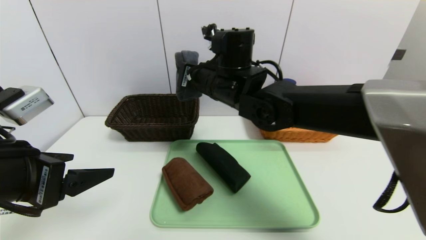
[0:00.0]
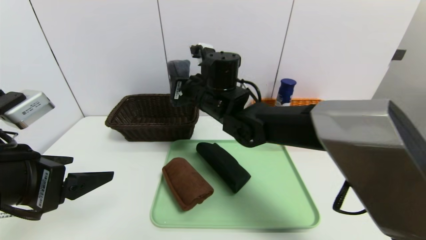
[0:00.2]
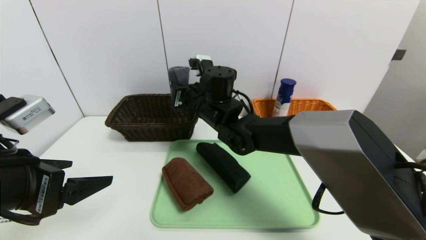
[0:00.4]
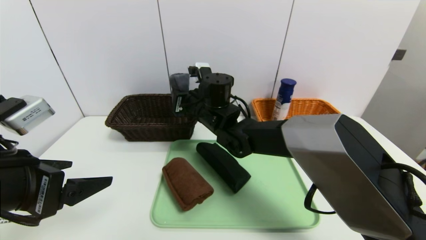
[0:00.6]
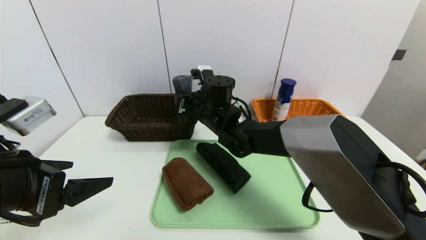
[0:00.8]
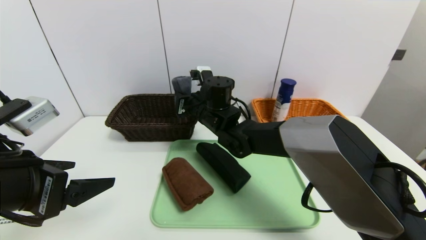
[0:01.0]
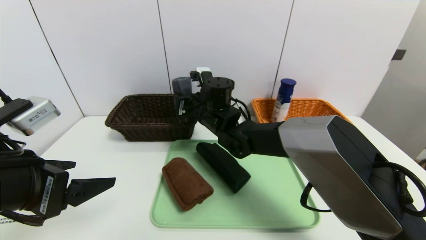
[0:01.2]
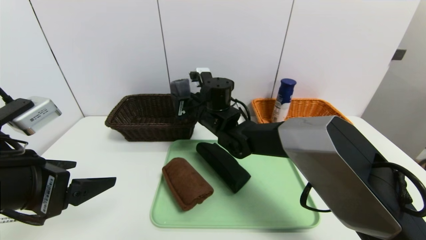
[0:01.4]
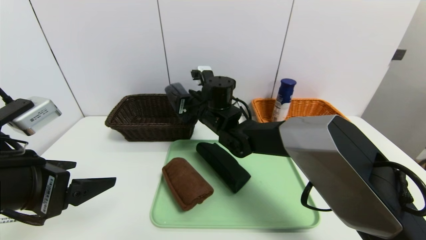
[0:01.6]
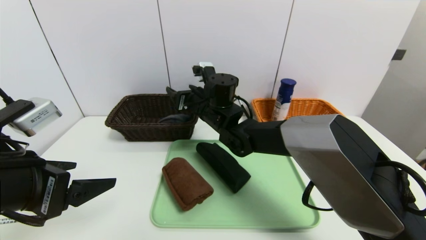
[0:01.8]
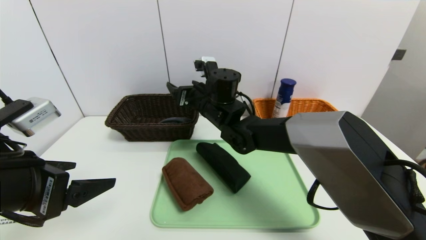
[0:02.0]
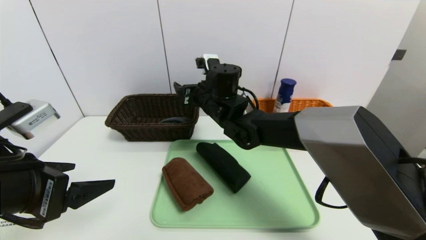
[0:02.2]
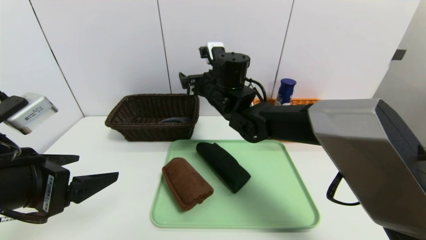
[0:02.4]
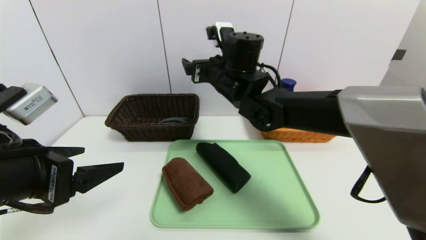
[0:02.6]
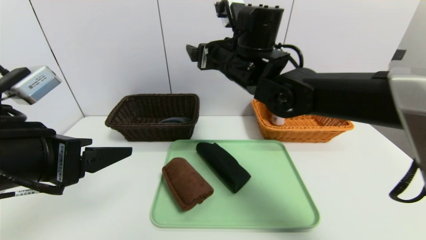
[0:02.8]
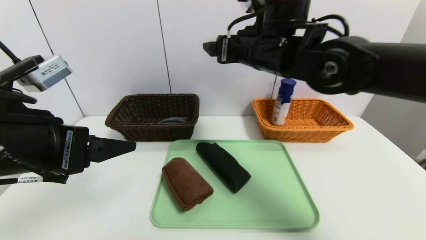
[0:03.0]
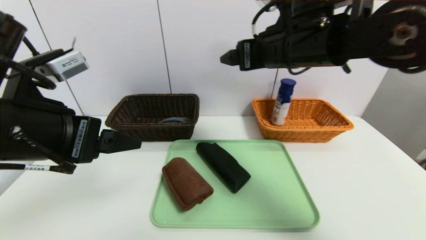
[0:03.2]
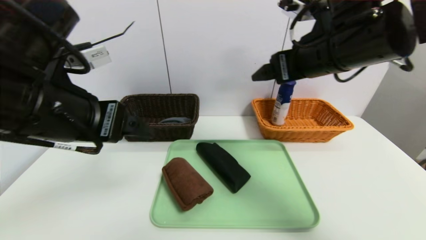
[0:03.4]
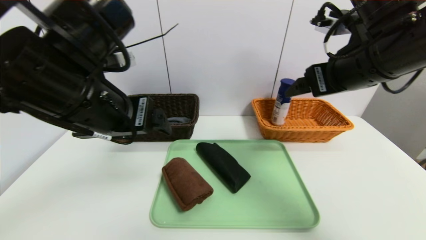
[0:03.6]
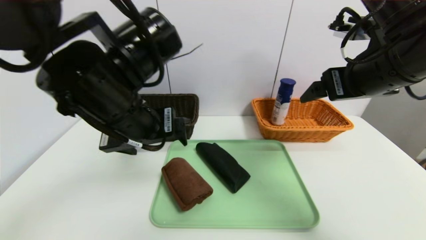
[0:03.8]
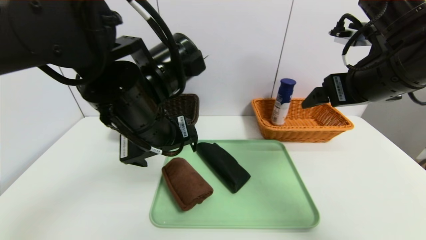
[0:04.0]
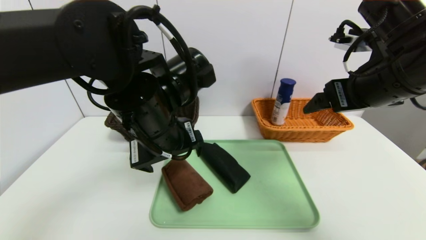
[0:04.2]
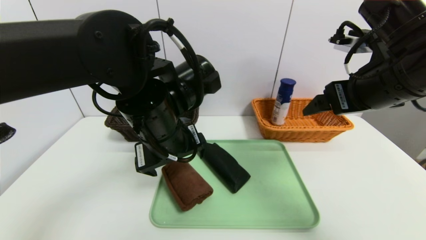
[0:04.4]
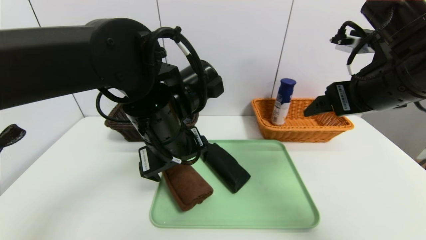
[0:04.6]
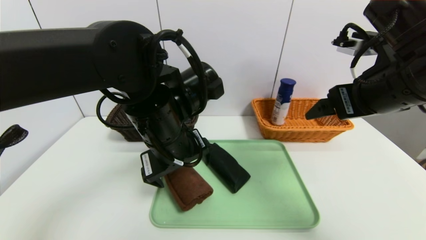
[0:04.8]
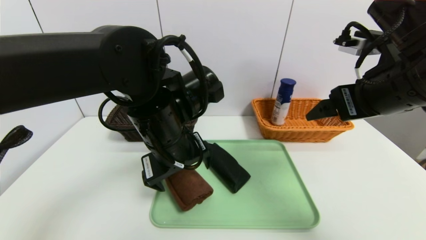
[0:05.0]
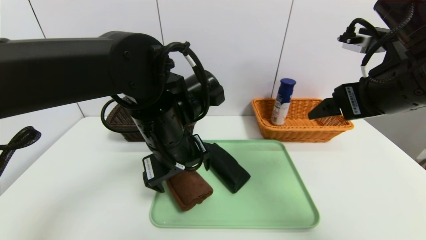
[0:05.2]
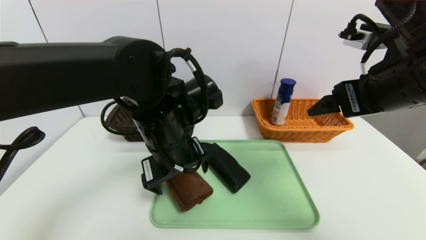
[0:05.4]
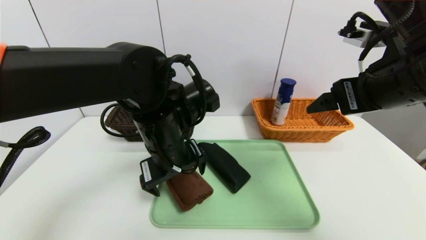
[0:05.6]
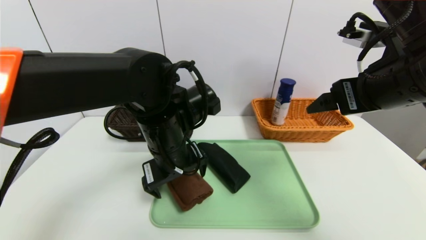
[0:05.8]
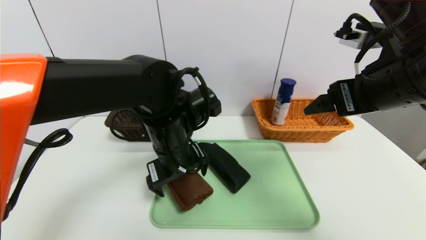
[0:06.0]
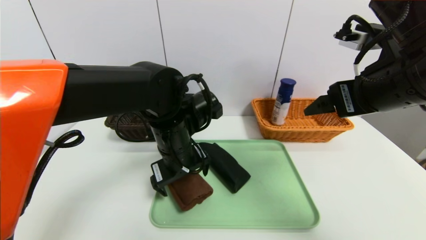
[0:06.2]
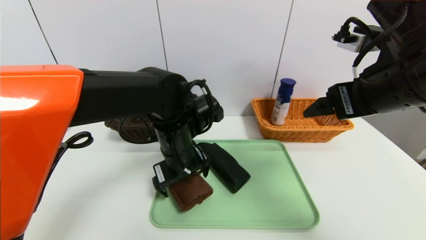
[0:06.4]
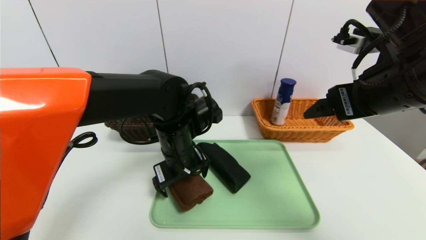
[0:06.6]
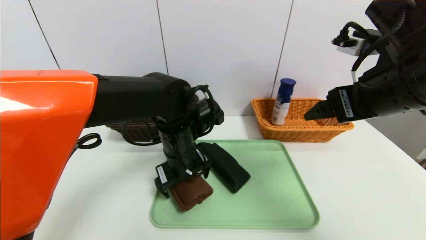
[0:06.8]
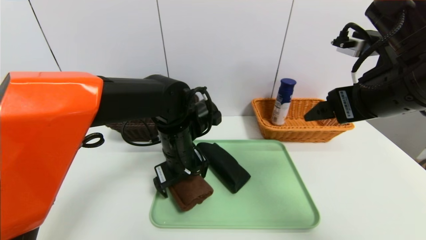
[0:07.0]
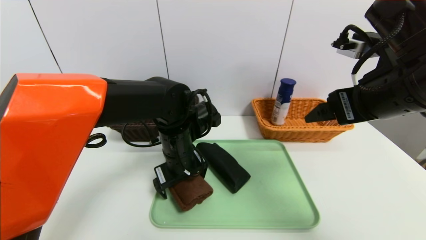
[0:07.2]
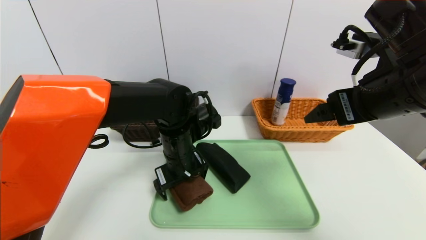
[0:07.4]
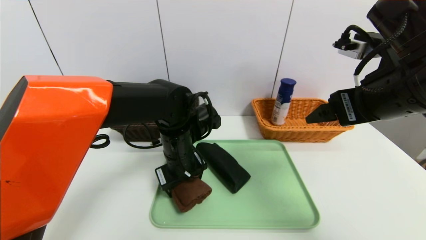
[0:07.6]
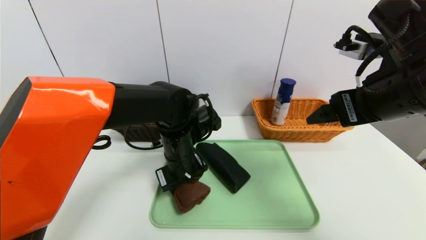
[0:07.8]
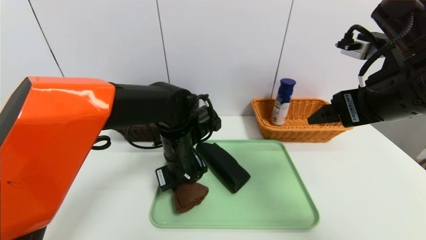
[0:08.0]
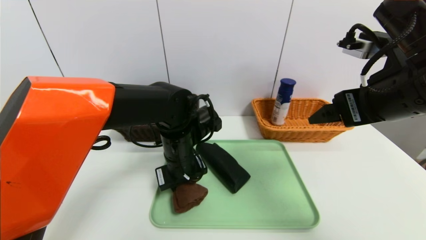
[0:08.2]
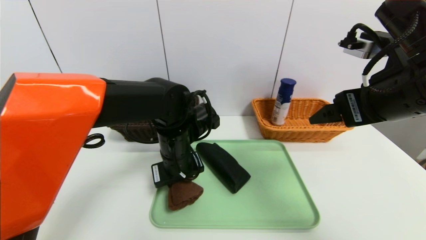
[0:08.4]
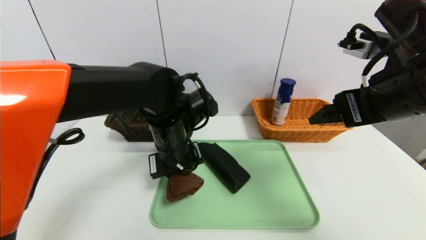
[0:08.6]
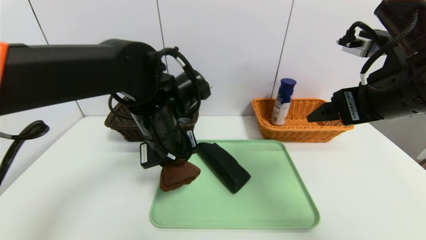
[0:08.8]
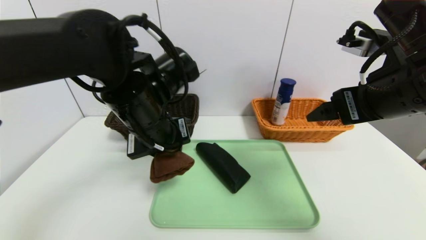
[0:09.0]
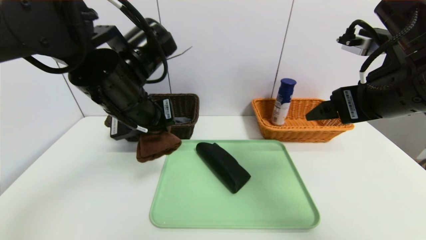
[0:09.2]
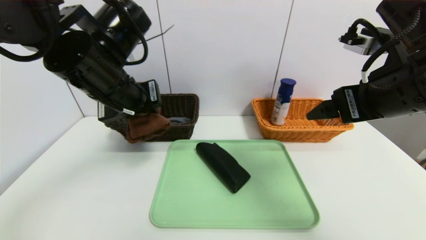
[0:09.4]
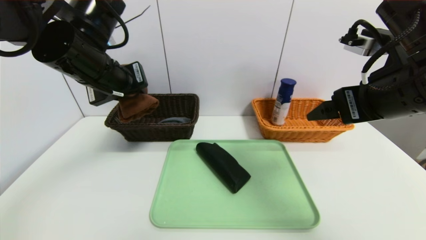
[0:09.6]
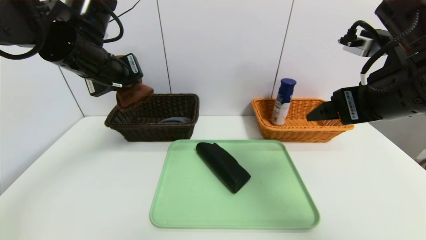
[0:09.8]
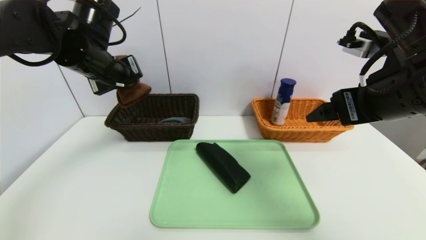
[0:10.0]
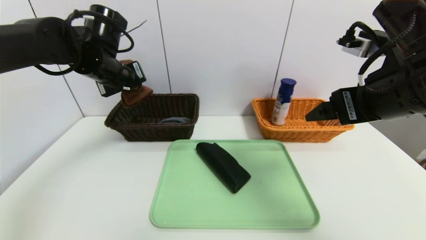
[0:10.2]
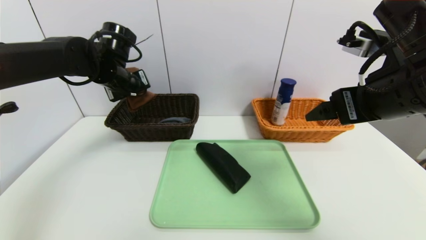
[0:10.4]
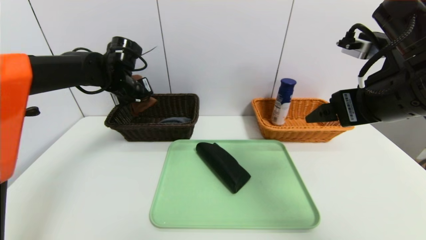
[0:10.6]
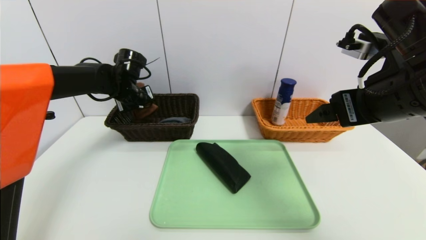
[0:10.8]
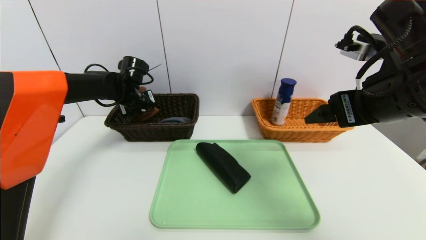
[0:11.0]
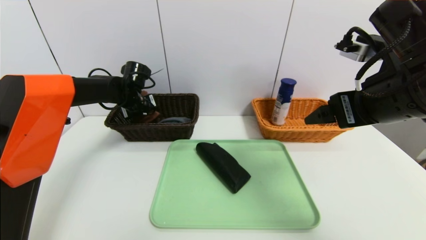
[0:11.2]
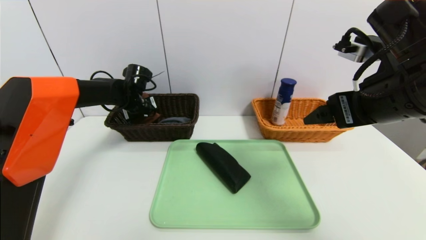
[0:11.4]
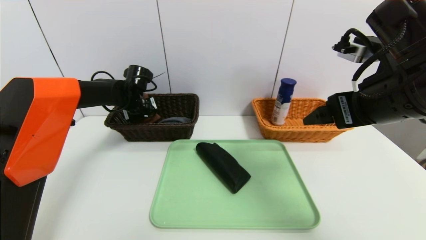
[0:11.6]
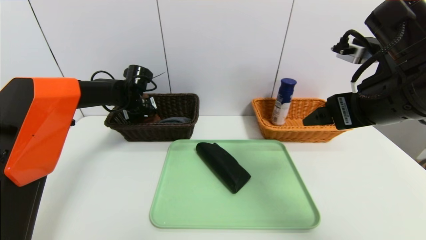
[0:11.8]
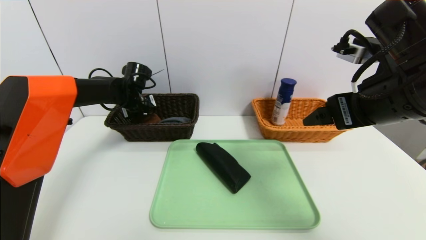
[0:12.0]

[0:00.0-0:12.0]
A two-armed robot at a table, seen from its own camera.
Task of the whole recording: place the food in the right basket with the right gripper, and place the non food items in the left basket with the left gripper.
0:00.0 to 0:01.6: The right gripper shifts about 10 cm downward, and opens up.
0:01.6 to 0:03.0: The right gripper goes some 20 cm upward, to the right and backward, while the left gripper changes place by about 5 cm.
0:03.0 to 0:04.4: The right gripper travels to the right and backward by approximately 15 cm; the left gripper shifts about 15 cm to the right and forward.
0:04.4 to 0:06.0: The left gripper changes place by roughly 5 cm.
0:06.0 to 0:07.6: The left gripper ends up roughly 5 cm from where it was, and closes up.
0:07.6 to 0:09.0: The left gripper goes some 10 cm upward, and closes its fingers.
0:09.0 to 0:10.4: The left gripper shifts some 20 cm forward and to the left.
0:10.4 to 0:12.0: The left gripper goes approximately 10 cm downward and forward, and opens up.

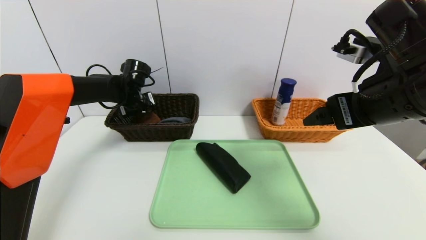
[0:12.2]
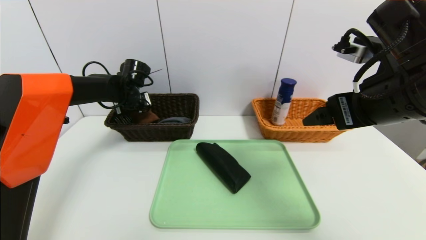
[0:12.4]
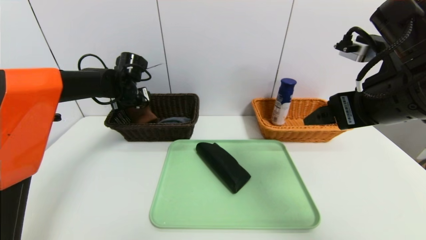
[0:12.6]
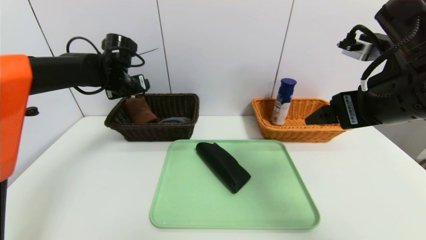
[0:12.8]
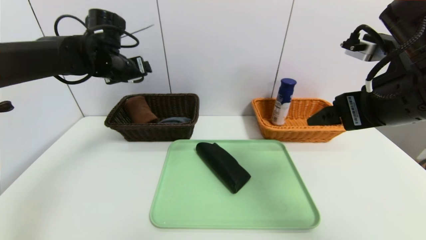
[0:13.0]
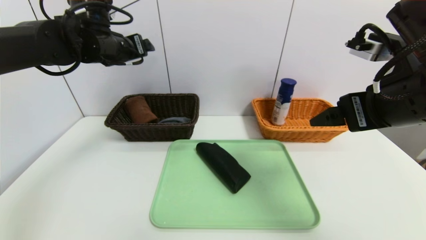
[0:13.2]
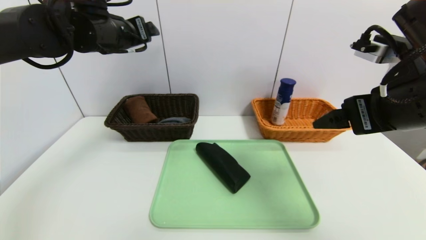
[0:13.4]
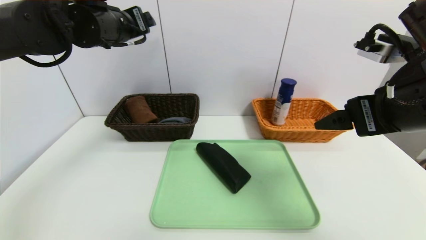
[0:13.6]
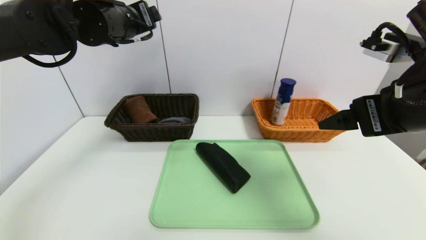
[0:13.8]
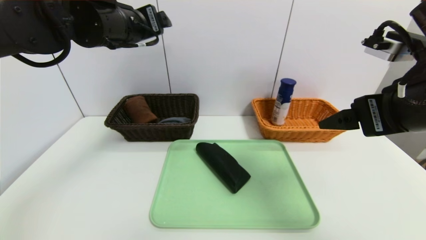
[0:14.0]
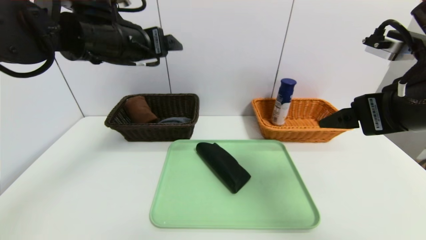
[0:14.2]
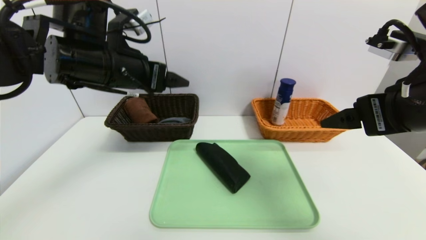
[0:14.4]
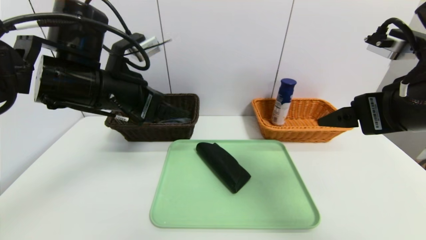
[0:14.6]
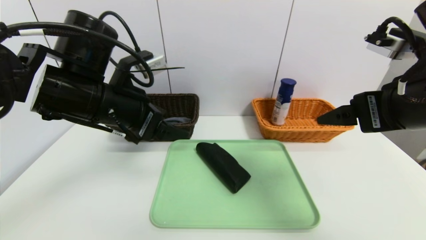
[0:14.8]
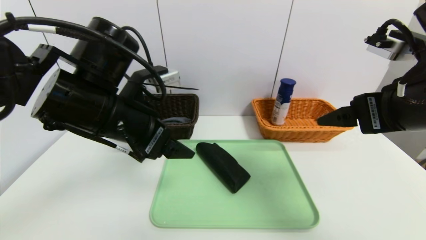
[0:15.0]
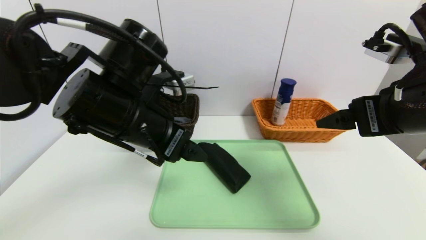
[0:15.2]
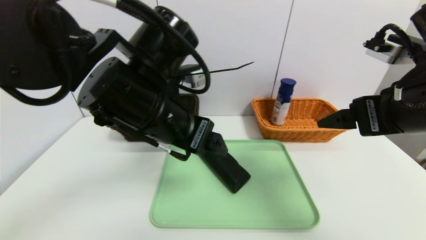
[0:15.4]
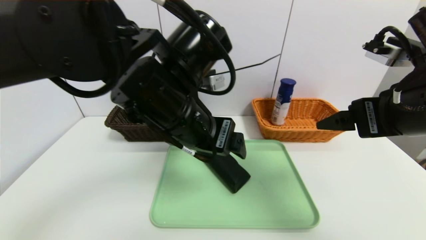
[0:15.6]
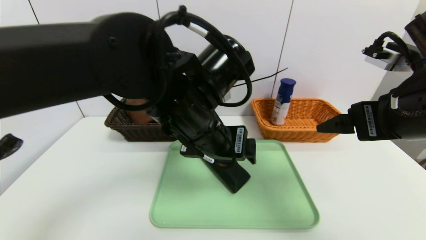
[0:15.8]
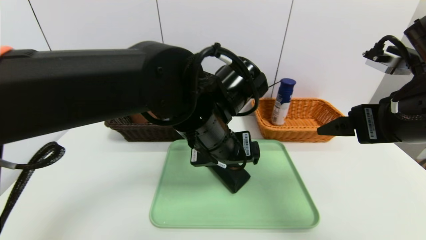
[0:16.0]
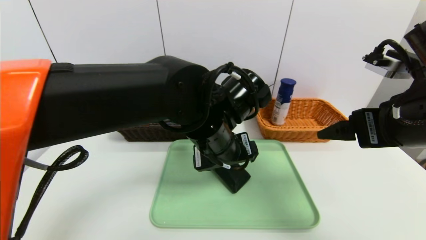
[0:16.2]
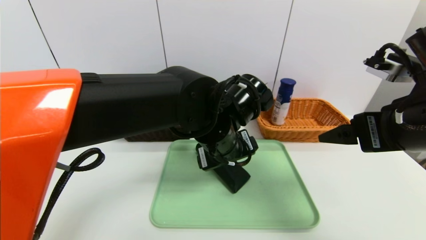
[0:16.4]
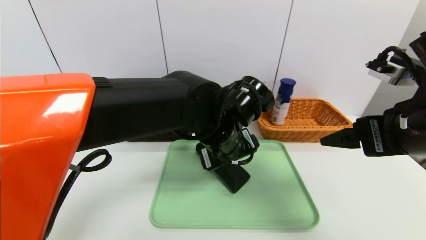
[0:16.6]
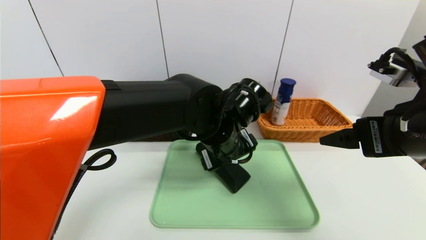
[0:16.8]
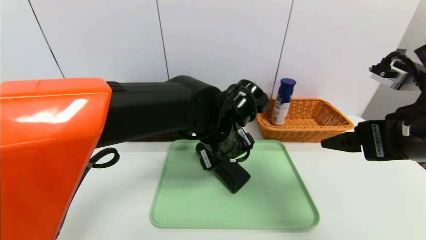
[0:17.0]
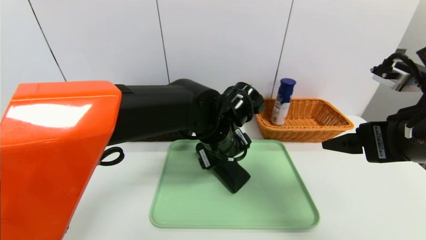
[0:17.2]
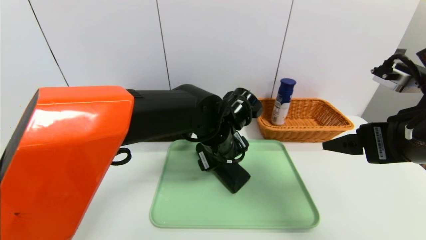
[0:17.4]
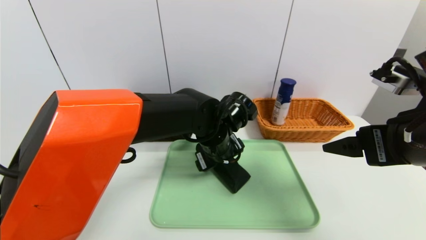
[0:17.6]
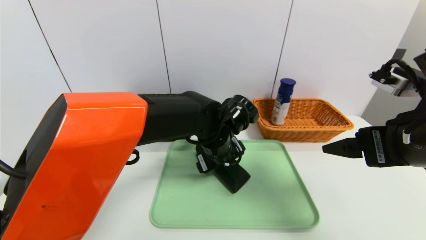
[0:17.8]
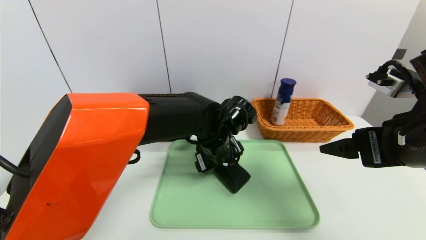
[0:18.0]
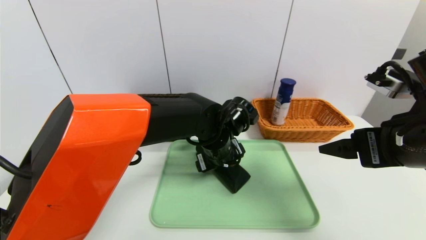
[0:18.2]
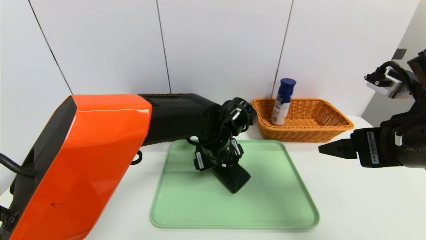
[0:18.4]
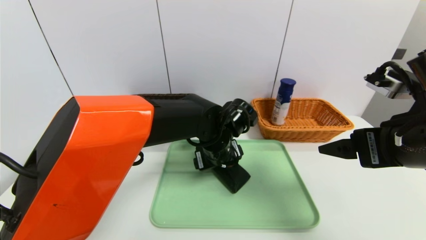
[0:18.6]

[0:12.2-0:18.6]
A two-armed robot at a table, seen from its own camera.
Task of the whole recording: place the food in the right basket with the right gripper, and place the non food items in the left basket with the left gripper.
0:12.2 to 0:13.8: The left gripper shifts approximately 20 cm upward and backward.
0:13.8 to 0:15.4: The left gripper goes roughly 15 cm backward, to the right and downward.
0:15.4 to 0:17.0: The left gripper is displaced to the right, downward and forward by some 15 cm.
0:17.0 to 0:18.6: The left gripper ends up some 5 cm from where it was.
